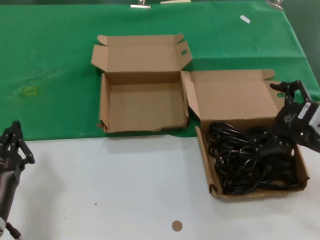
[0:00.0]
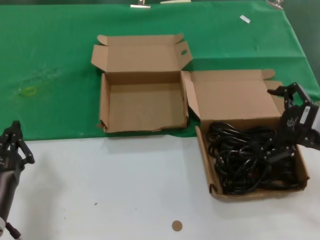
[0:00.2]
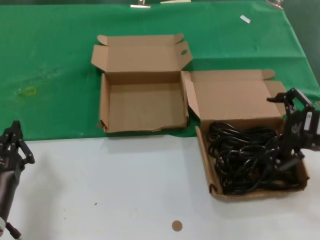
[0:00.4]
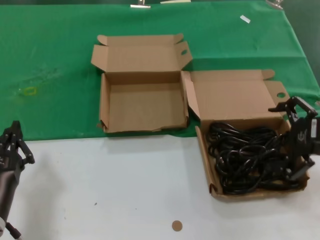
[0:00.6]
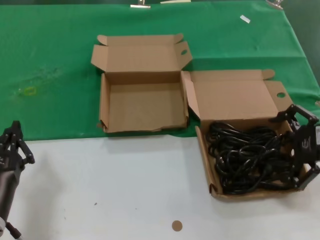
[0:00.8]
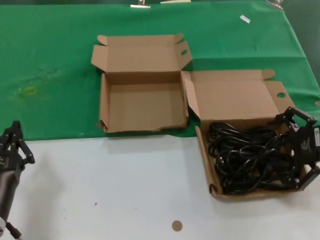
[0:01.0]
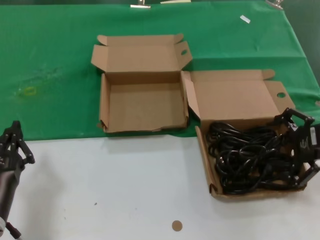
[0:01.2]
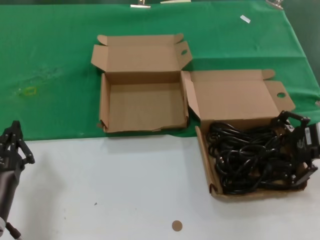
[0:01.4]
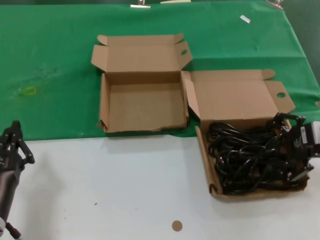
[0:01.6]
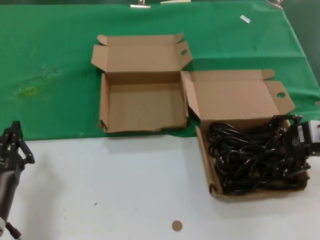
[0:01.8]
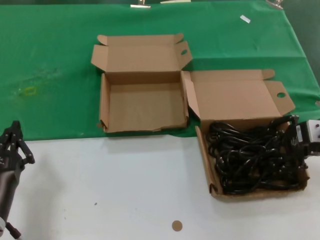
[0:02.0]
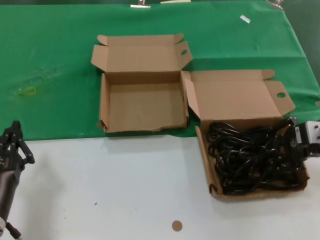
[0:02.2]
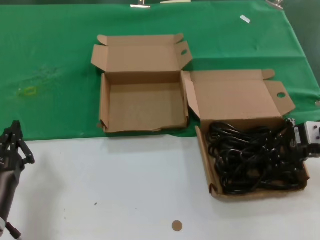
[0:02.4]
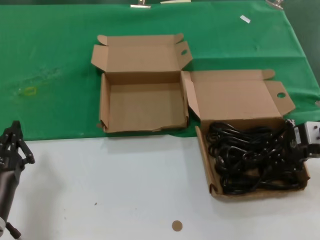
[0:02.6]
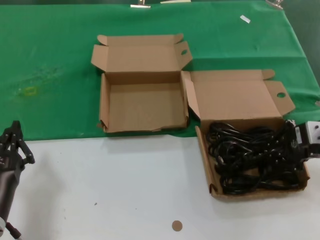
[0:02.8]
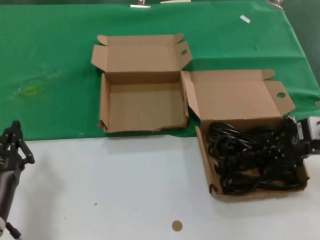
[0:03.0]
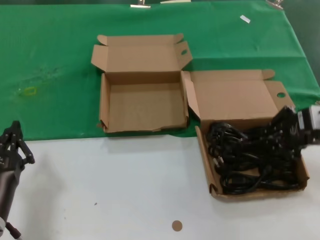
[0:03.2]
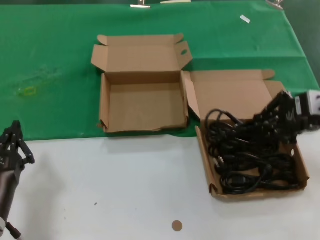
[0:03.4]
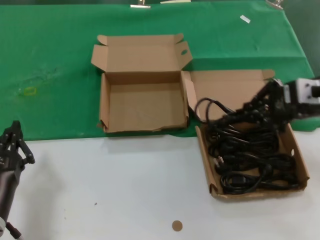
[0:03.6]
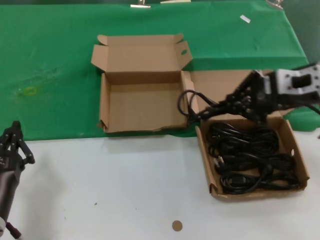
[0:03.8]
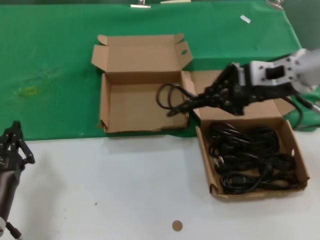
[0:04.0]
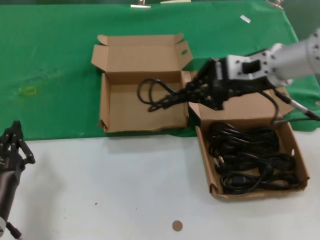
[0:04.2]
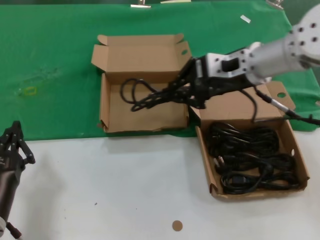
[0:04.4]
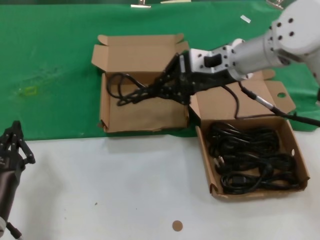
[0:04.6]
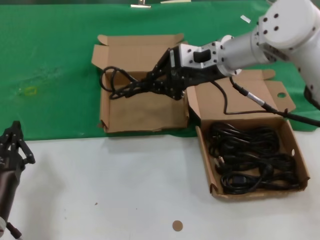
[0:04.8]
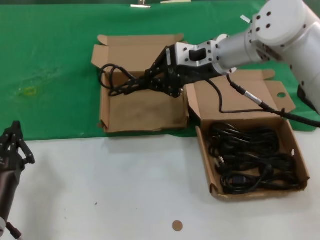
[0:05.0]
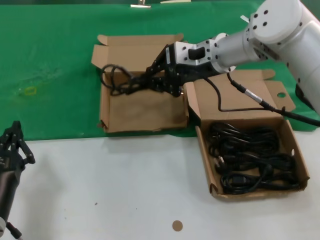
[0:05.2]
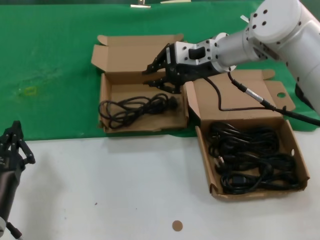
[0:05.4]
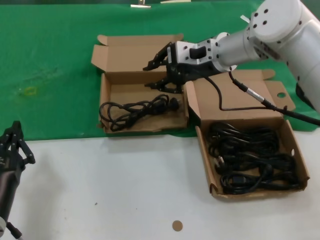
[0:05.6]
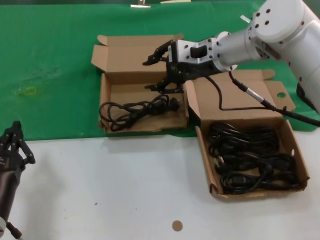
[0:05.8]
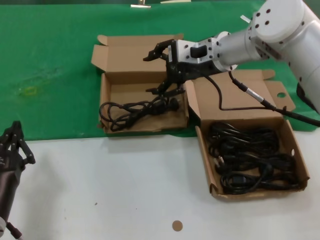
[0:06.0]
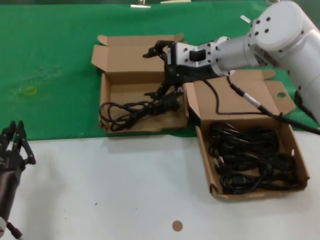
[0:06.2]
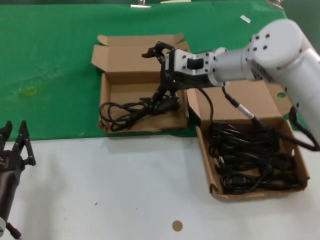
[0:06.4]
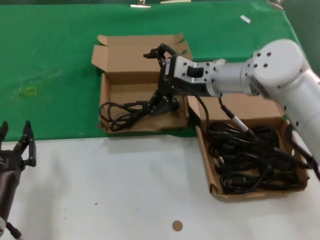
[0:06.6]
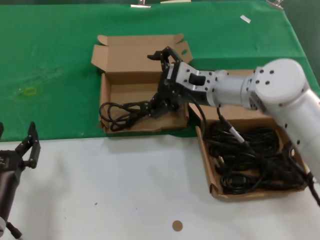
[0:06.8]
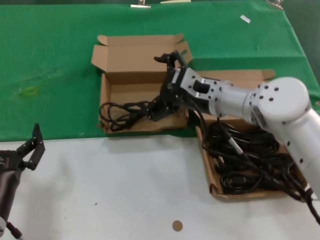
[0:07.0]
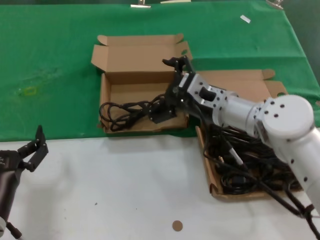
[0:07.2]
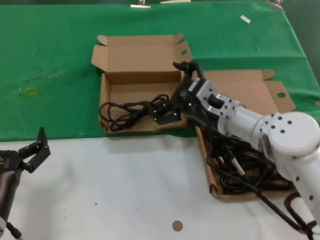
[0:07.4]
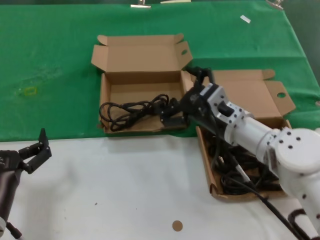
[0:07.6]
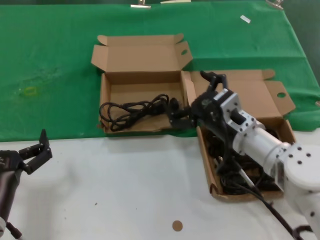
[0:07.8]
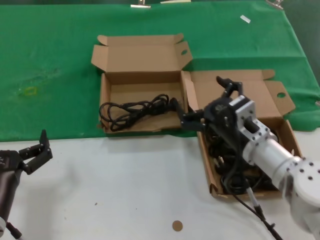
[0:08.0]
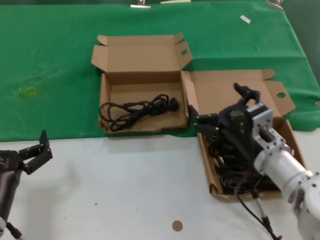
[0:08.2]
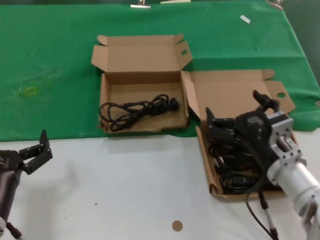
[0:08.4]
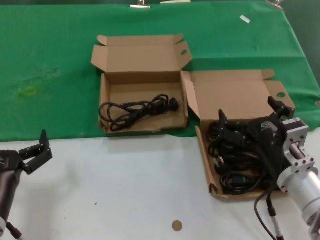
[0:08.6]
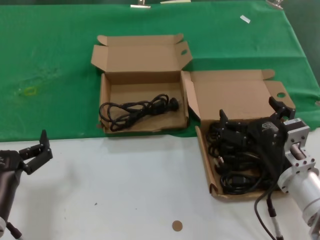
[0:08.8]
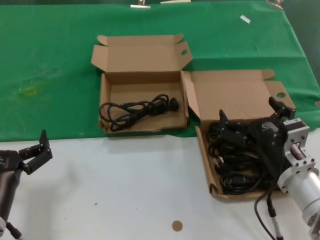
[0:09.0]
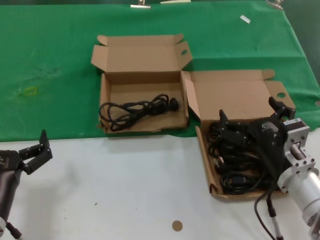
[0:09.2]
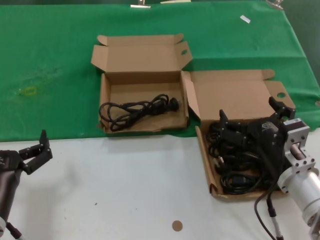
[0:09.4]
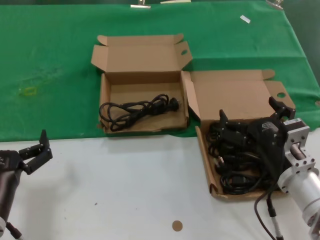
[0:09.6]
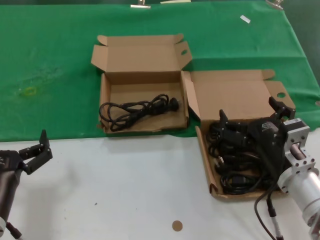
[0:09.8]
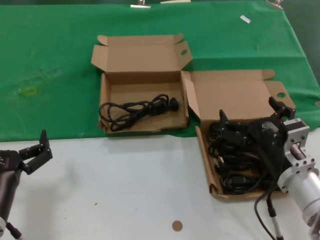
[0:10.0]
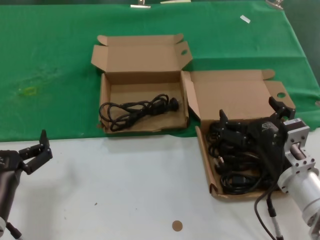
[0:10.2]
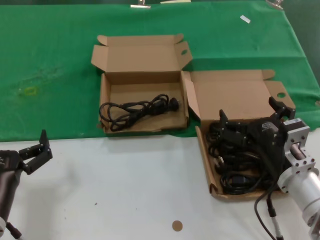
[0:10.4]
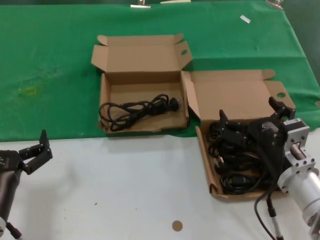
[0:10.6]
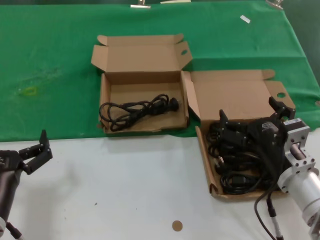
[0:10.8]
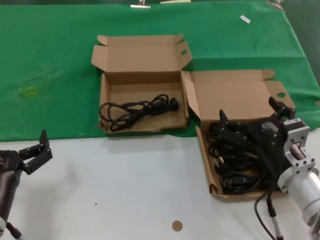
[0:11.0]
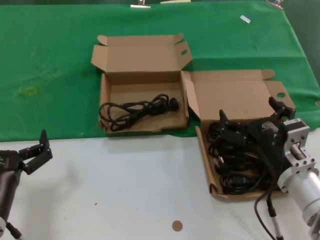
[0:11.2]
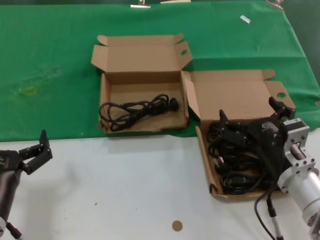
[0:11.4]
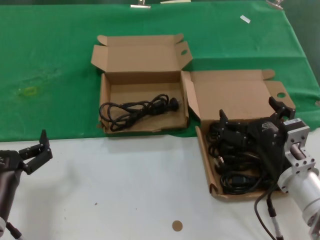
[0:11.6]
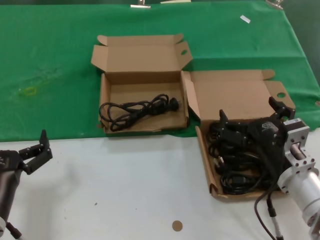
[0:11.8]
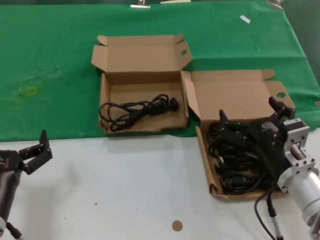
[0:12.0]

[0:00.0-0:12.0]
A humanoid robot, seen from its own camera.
Task of the whole recording: take the parts from the box containing them and put them into an empty box.
Step, 0:00.0 to 0:02.6: Grasp the data cable.
Step, 0:02.8 to 0:05.2: Place the data cable in the another box.
0:00.0 to 0:01.6: The right hand is displaced forward by about 5 cm.
0:01.6 to 0:03.0: The hands make only small movements.
0:03.0 to 0:04.4: The right hand shifts about 20 cm to the left, forward and upward.
0:04.4 to 0:06.0: The right hand heads forward, covering some 5 cm.
0:06.0 to 0:07.6: The right hand goes about 20 cm downward and backward.
0:07.6 to 0:09.0: The right hand is displaced backward and to the right by about 15 cm.
0:09.0 to 0:12.0: Both hands stay about where they are.

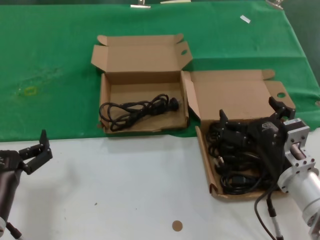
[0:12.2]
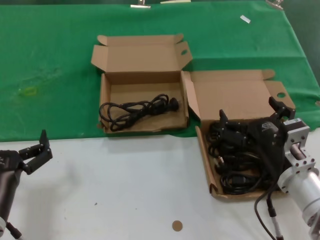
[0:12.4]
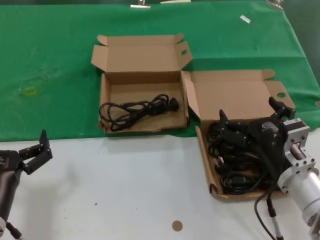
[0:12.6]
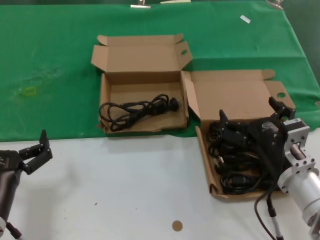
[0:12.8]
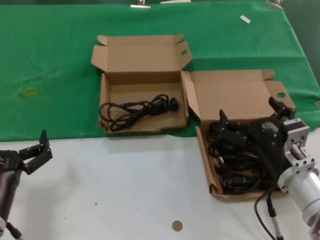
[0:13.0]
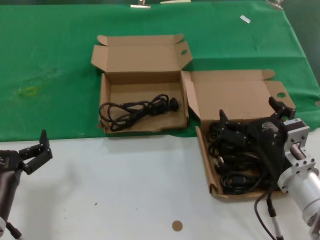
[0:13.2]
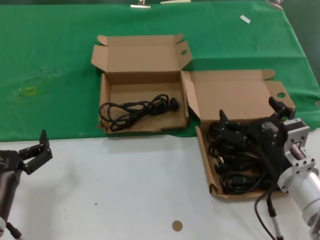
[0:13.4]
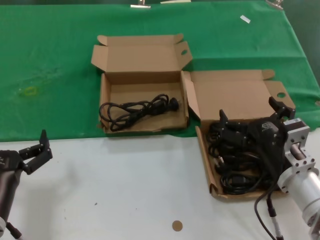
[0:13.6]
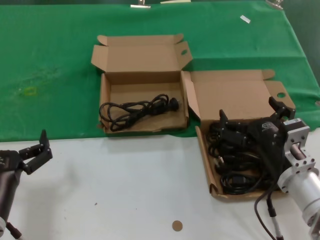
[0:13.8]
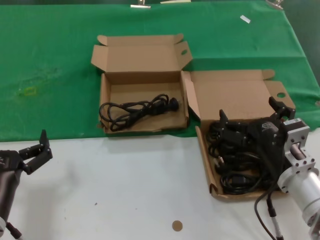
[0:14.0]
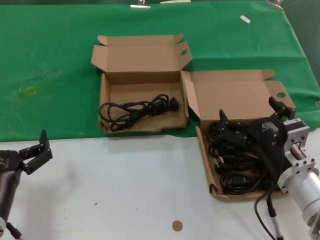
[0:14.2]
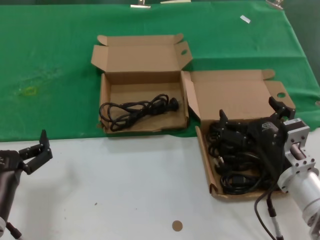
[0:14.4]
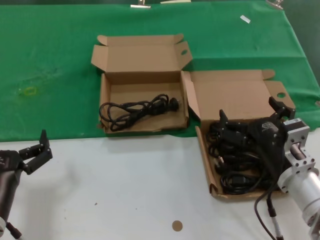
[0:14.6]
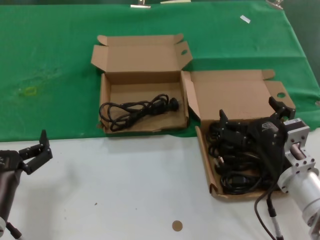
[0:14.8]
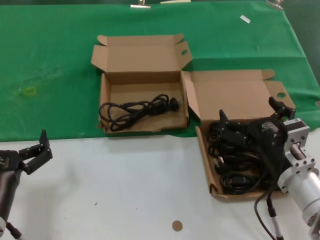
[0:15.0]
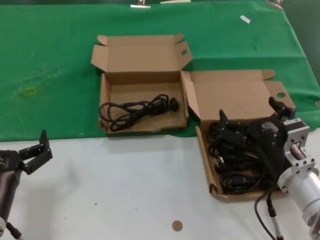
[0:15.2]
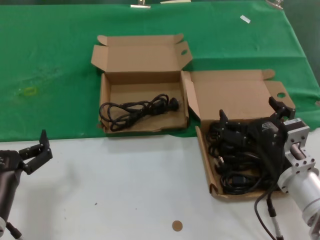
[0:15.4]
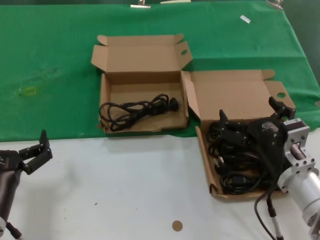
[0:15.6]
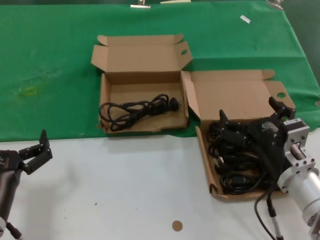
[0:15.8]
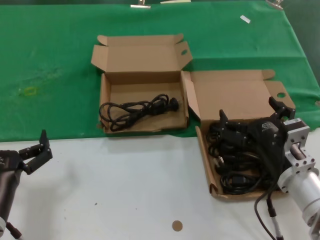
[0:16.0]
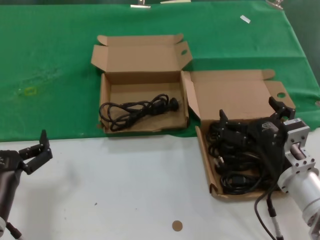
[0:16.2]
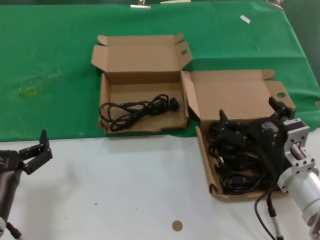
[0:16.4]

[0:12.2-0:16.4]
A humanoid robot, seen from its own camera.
Task of the whole recording: take the parts from the box containing them and put them into an empty box.
0:12.2 to 0:16.4: Neither hand changes place.

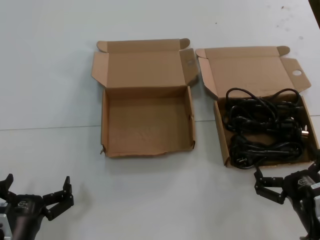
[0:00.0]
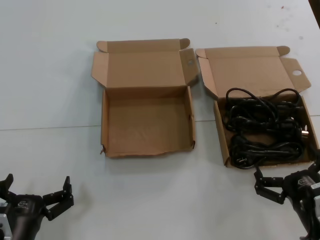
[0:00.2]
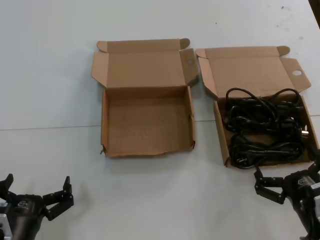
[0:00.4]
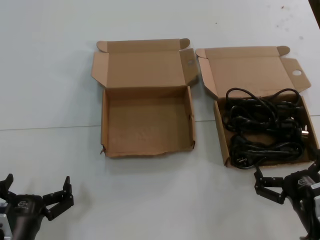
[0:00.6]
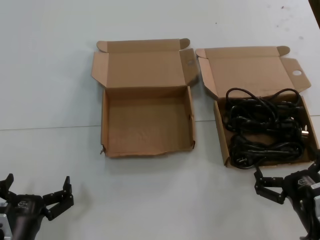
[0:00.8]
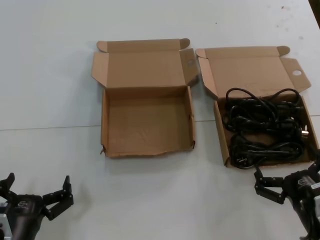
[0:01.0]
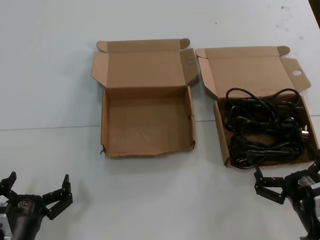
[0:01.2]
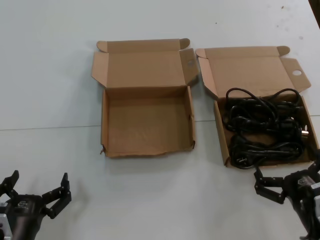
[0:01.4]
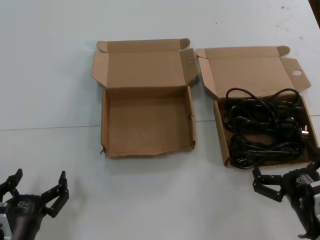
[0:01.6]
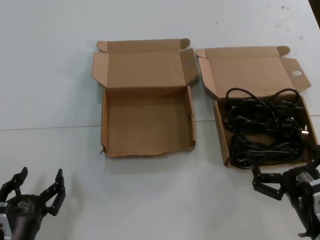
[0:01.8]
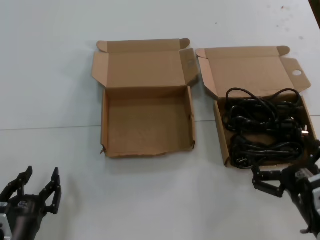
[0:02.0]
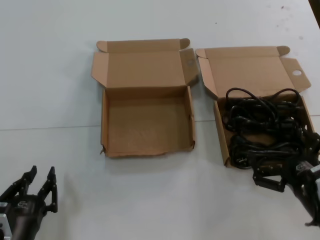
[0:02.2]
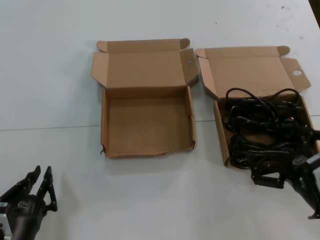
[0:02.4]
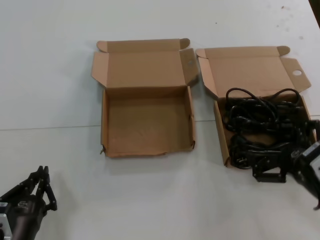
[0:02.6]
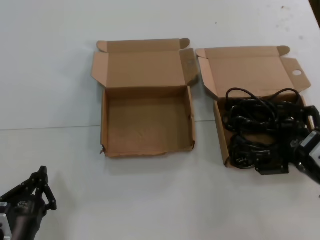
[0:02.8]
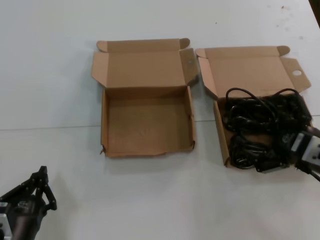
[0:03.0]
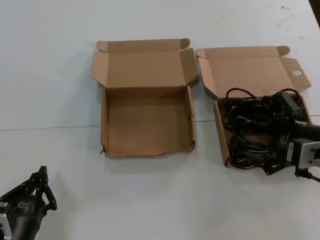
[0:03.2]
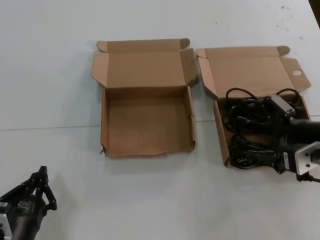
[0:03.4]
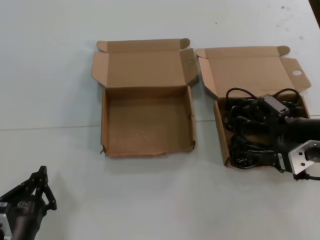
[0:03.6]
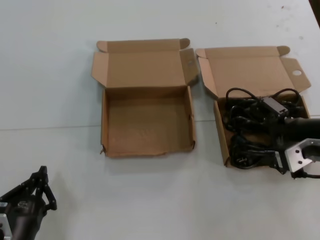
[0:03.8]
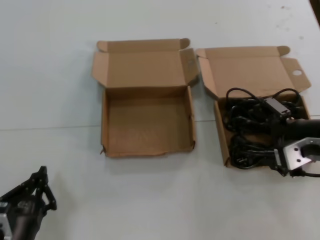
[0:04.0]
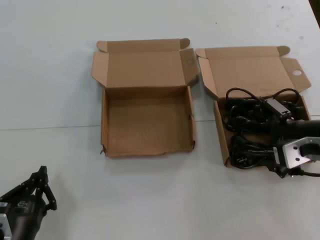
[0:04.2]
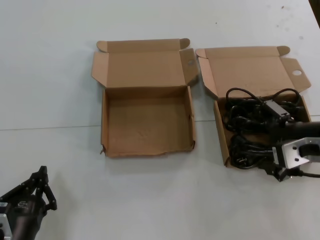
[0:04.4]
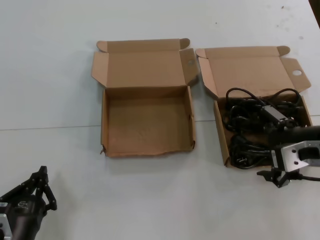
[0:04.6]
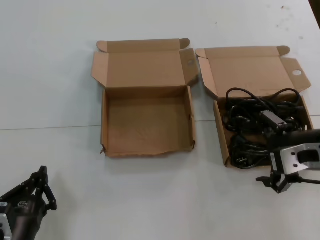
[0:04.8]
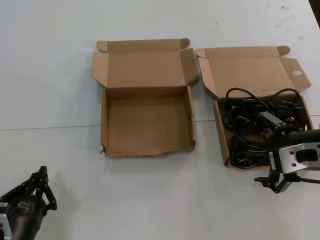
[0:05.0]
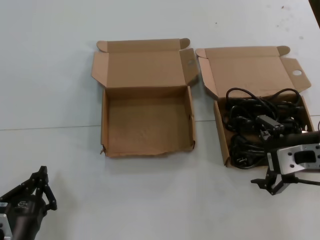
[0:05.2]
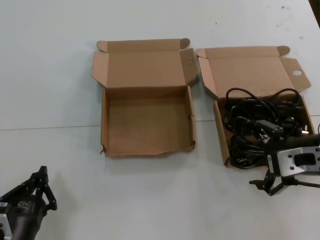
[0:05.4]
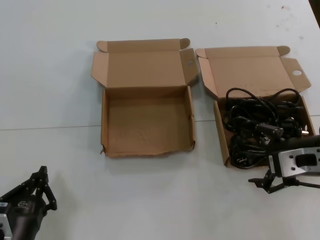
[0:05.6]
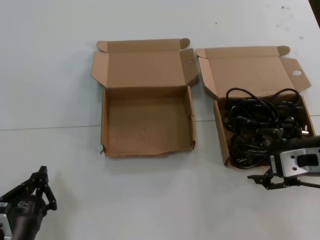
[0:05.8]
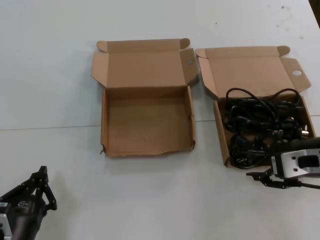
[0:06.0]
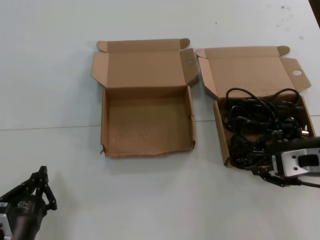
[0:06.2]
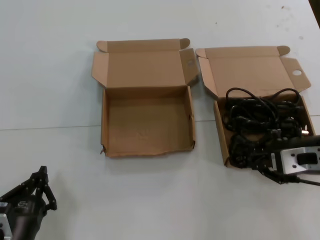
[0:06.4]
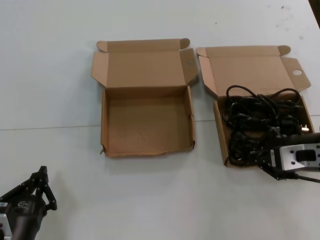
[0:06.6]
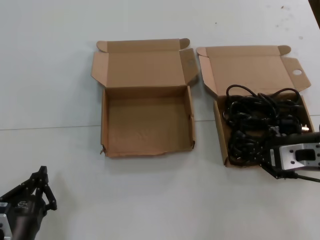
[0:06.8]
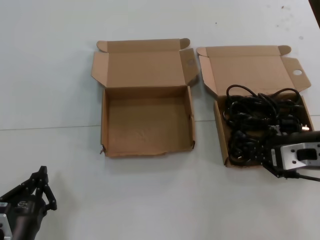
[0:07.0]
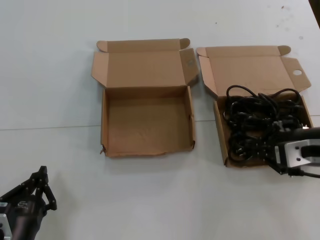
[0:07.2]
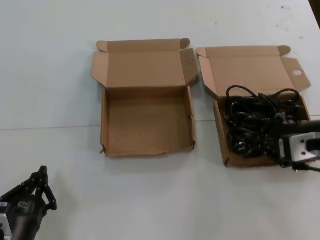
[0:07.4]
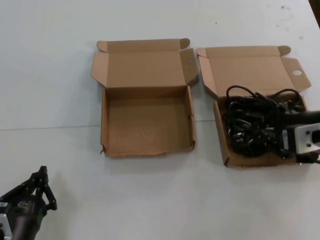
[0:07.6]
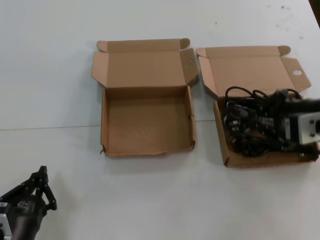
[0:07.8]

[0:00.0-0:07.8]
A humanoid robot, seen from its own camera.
Task of the whole recording: take the parts from the box containing them and put them into an empty box.
Step, 0:00.0 to 0:06.4: Grasp the data cable.
0:00.0 to 0:01.6: Neither hand changes place.
0:01.6 to 0:03.2: The right hand is displaced upward and forward by approximately 20 cm.
0:04.6 to 0:06.2: The hands stay close to where they were, moving slightly.
0:06.2 to 0:07.8: The right hand shifts some 10 cm upward.
